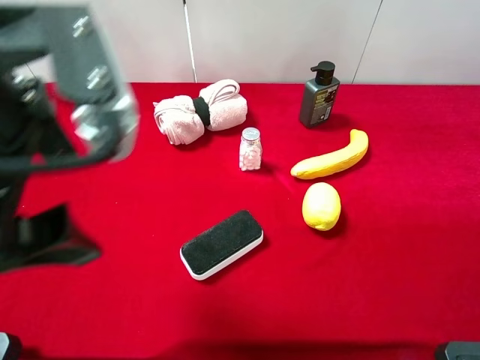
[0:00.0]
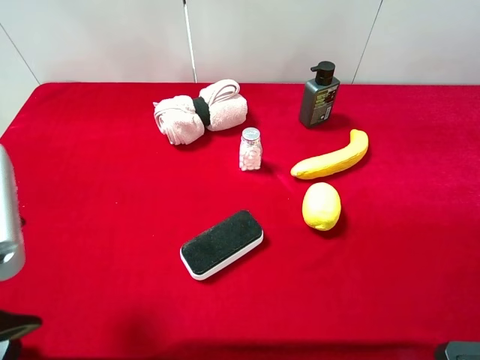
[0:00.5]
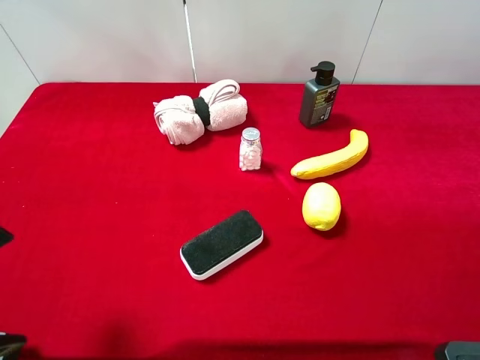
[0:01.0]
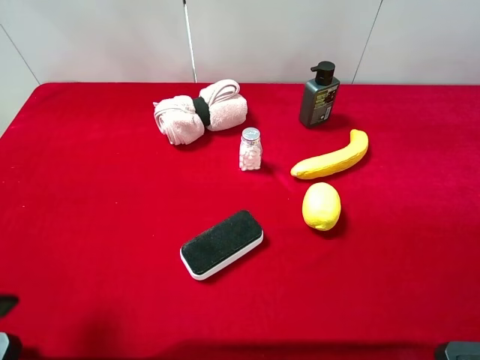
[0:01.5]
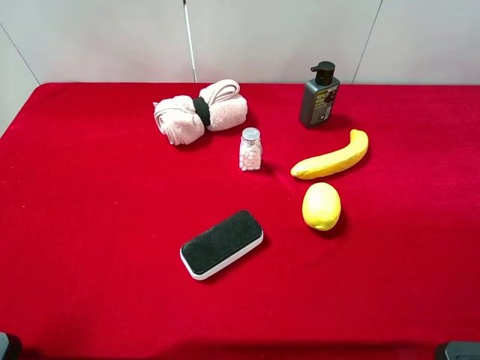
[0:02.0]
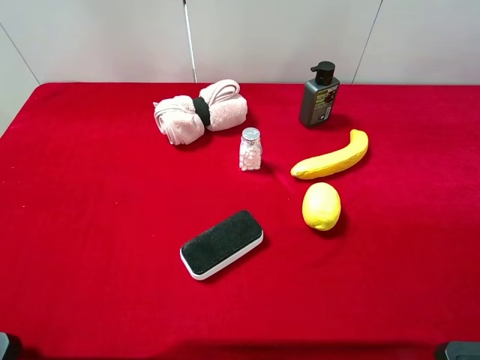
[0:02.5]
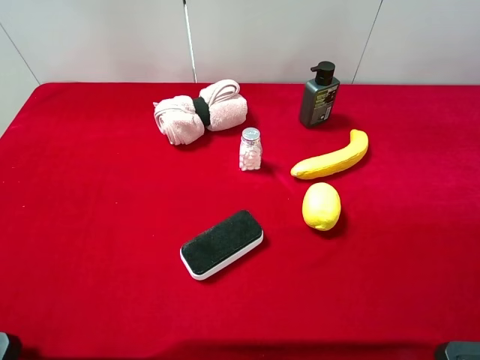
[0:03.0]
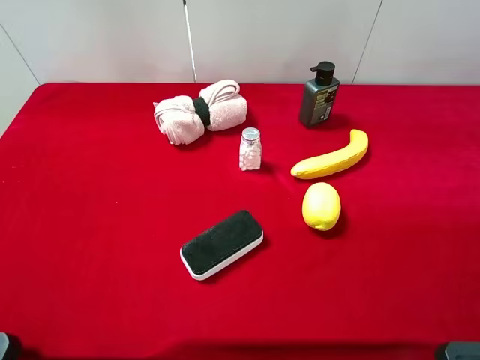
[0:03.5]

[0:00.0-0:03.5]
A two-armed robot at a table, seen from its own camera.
Task of the whole recording: the gripper move the object.
0:00.0 to 0:02.0: The left gripper heads to the left and backward, covering about 15 cm.

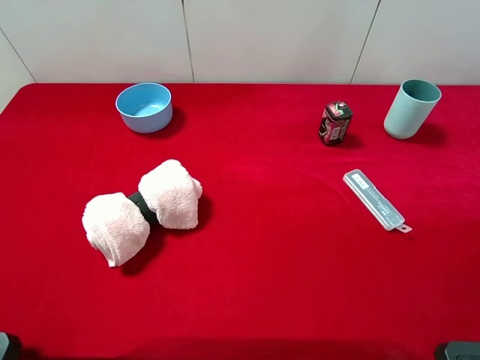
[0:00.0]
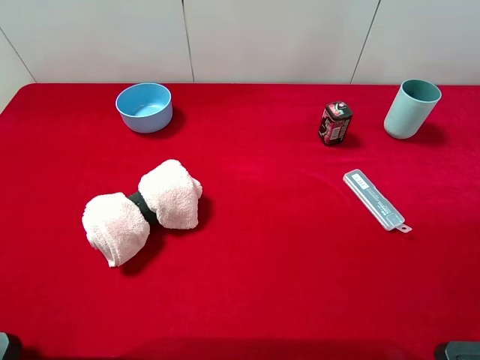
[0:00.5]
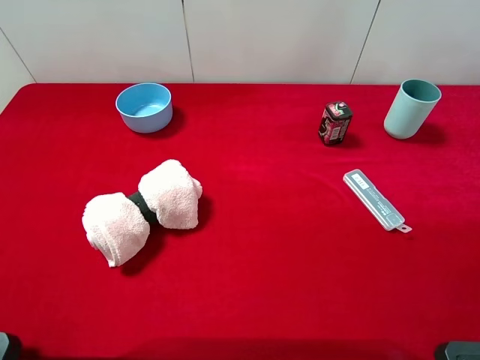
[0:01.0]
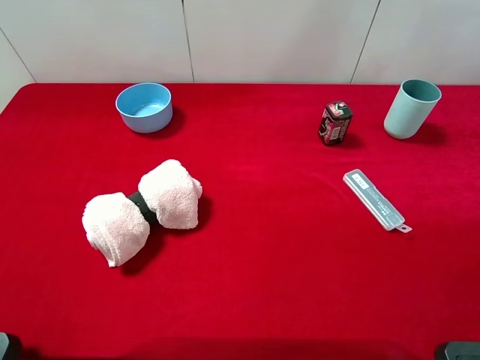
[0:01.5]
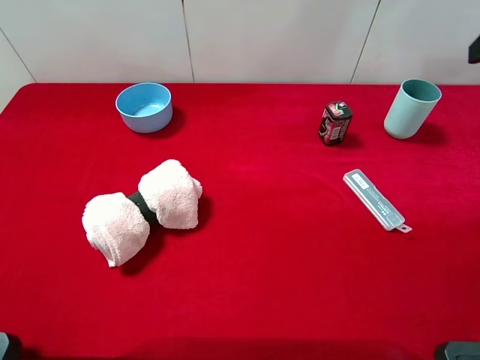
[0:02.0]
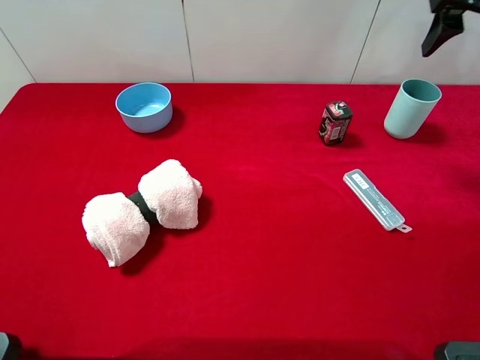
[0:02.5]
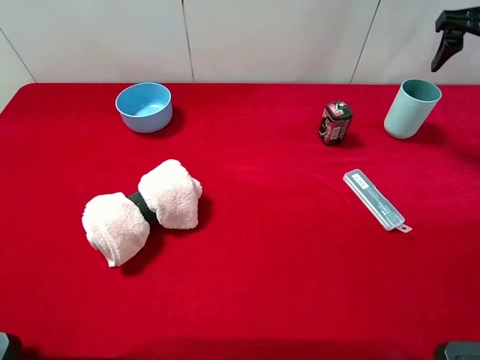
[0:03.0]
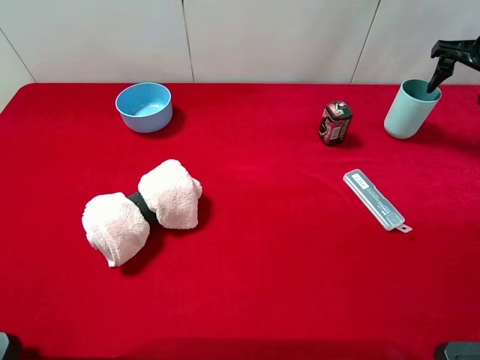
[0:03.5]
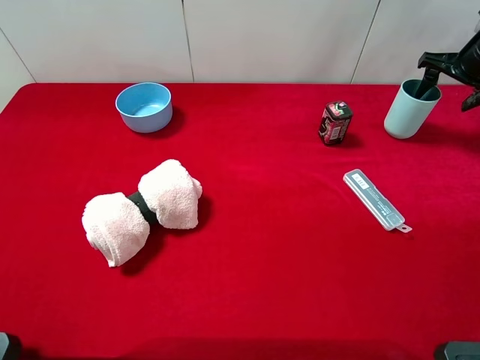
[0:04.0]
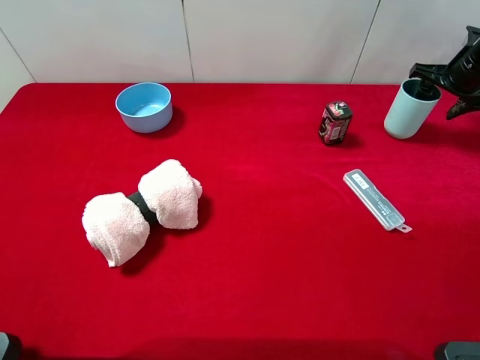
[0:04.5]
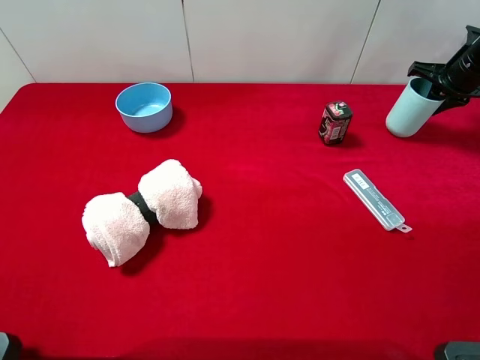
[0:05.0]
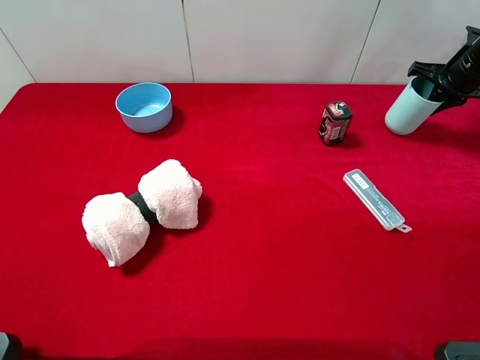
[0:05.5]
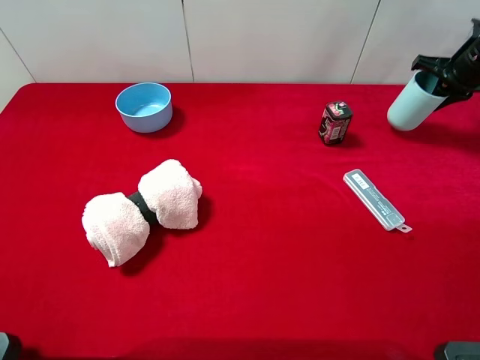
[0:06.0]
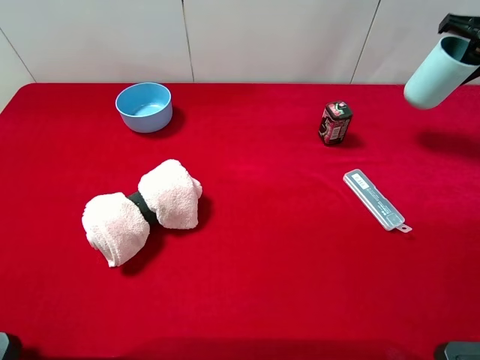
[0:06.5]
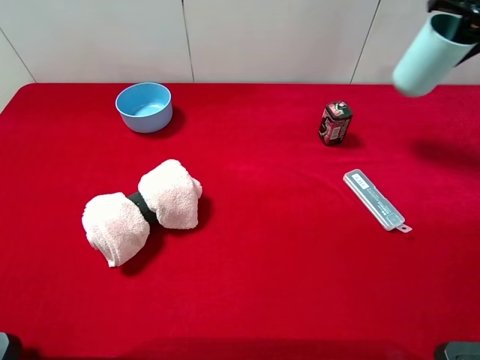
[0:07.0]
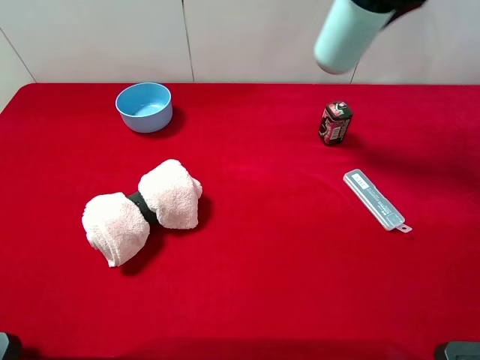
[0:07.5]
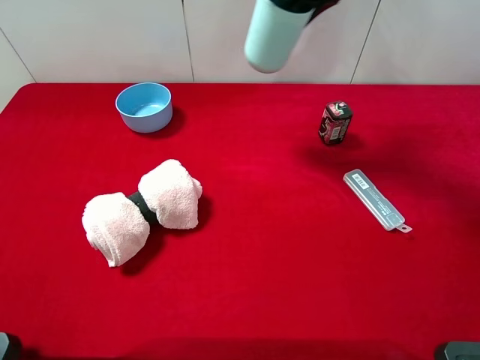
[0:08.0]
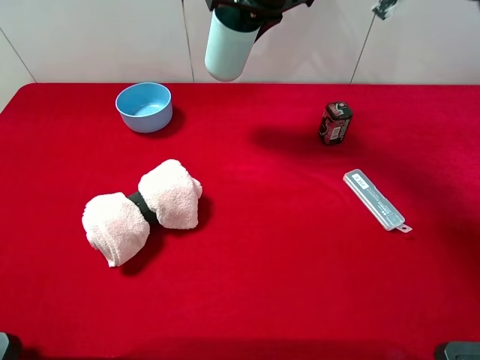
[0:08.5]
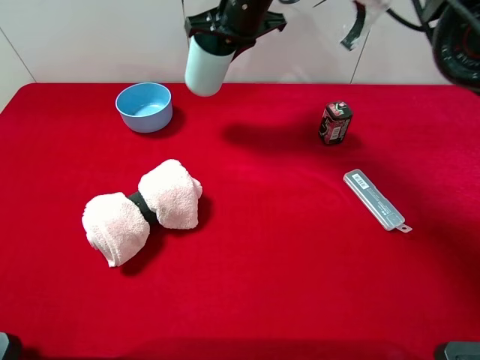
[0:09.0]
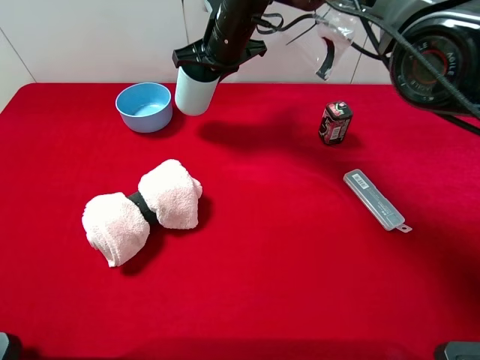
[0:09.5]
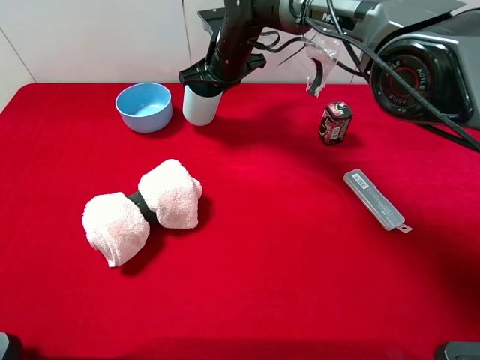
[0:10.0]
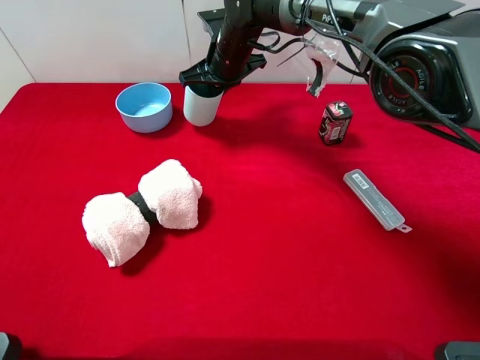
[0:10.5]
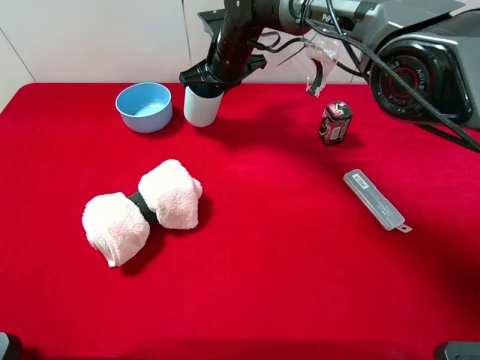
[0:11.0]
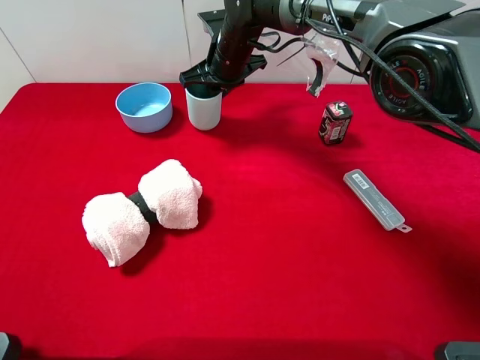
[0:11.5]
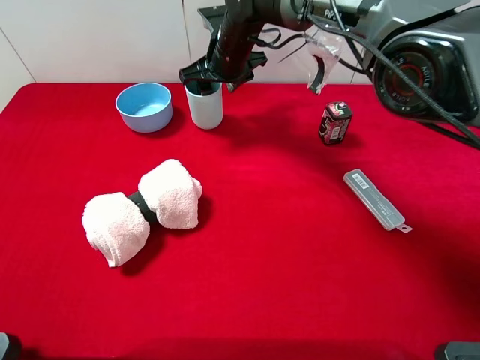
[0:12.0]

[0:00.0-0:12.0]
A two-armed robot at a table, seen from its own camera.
Task of the whole recording: the gripper move the object.
Step, 0:00.0 to 0:05.0: Grasp the blue cup with the right gripper.
0:02.0 to 0:04.0: The right gripper travels forward, downward and to the right by approximately 25 cm.
0:04.0 to 0:06.0: The right gripper closes its fingers.
0:06.0 to 0:08.0: The right gripper goes about 35 cm to the left and upward.
0:08.0 to 0:10.0: The right gripper moves downward and to the left, roughly 20 cm.
0:10.0 to 0:12.0: The right gripper opens.

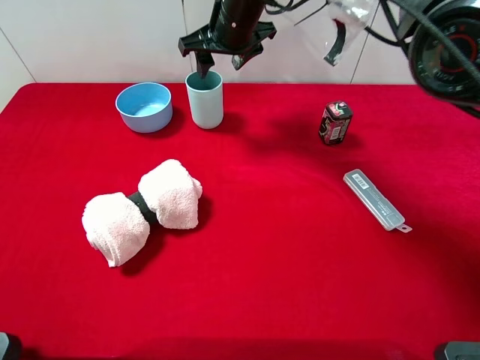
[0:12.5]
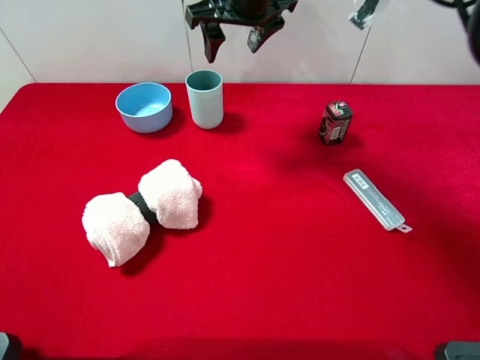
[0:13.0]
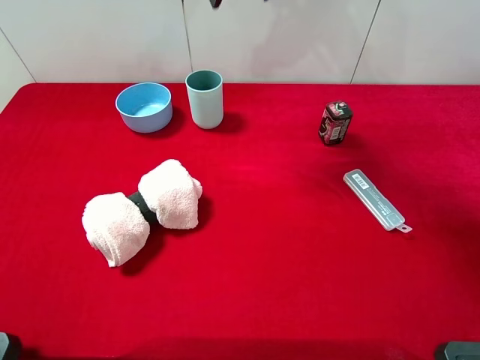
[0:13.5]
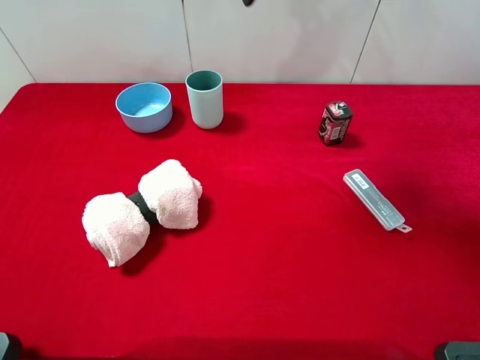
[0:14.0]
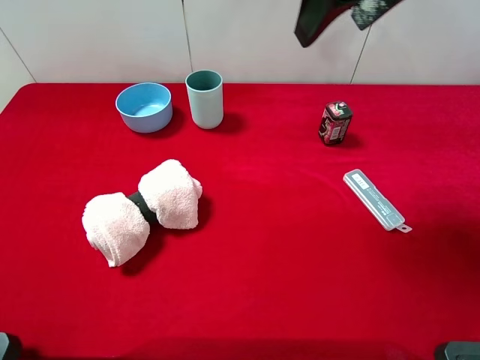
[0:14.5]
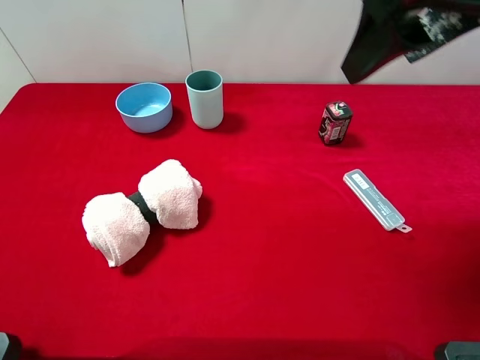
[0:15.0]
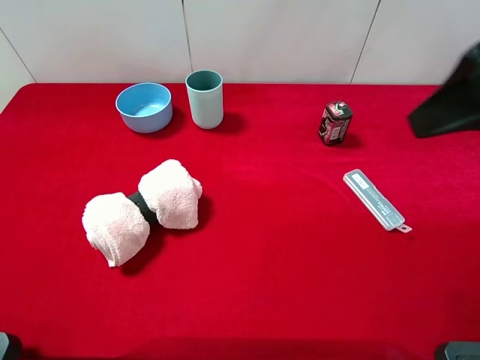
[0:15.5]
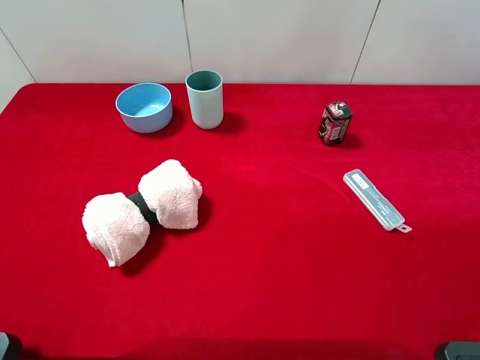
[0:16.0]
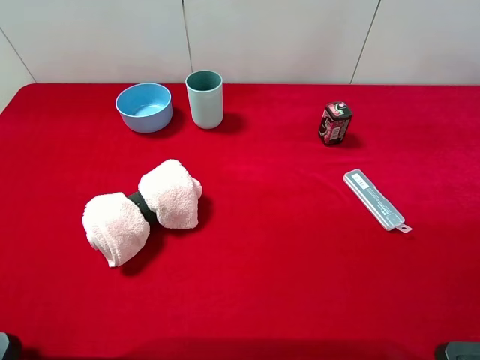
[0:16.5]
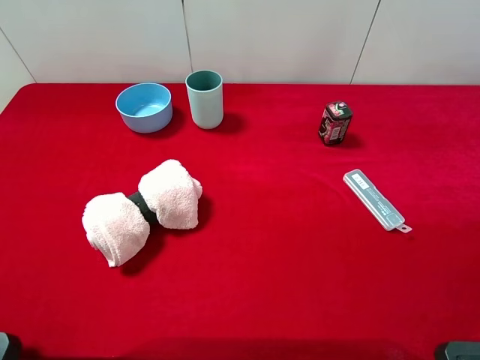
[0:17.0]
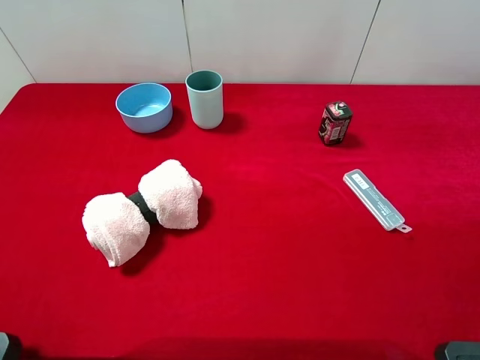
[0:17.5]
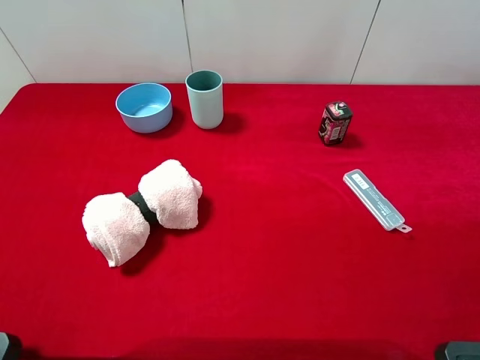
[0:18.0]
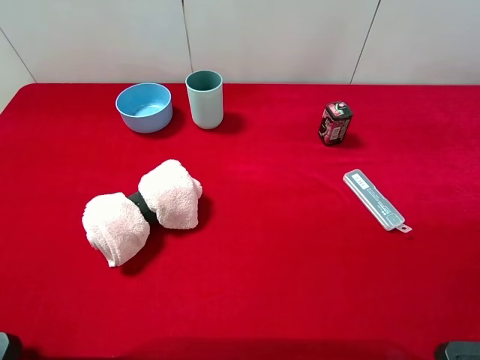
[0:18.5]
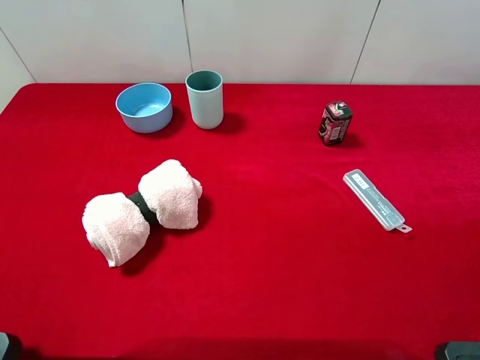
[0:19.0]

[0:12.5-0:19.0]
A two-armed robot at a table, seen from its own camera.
Task of the whole recording: the gripper move the object.
0:12.5 to 0:14.5: The right gripper shifts about 25 cm backward, upward and to the right.
0:14.5 to 0:17.0: The right gripper shifts some 30 cm backward and to the right.
0:17.0 to 0:19.0: Both grippers stay put.
